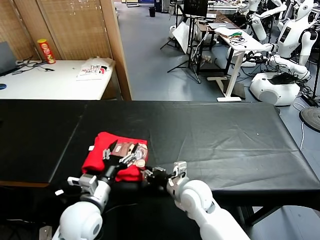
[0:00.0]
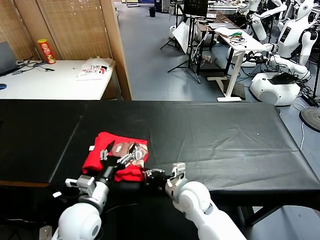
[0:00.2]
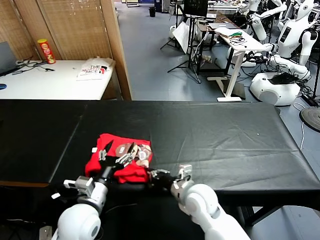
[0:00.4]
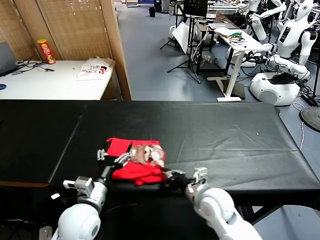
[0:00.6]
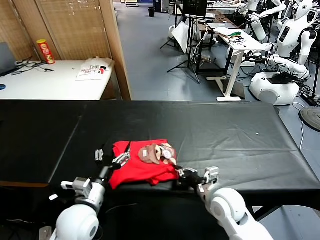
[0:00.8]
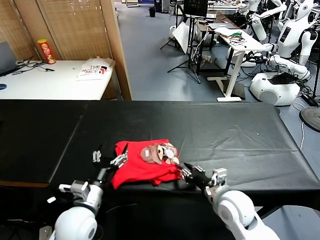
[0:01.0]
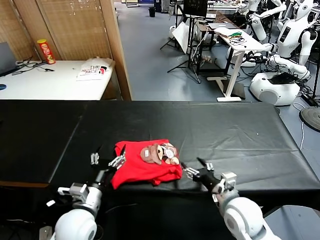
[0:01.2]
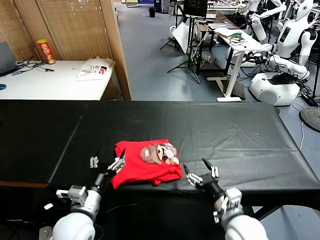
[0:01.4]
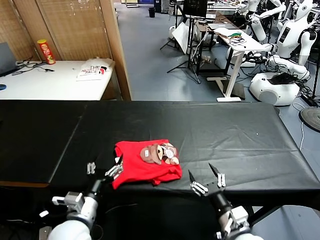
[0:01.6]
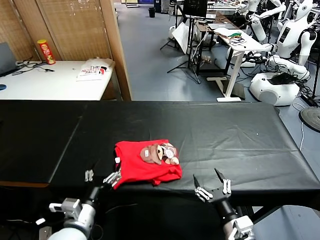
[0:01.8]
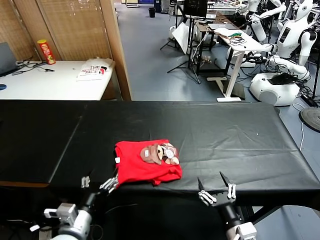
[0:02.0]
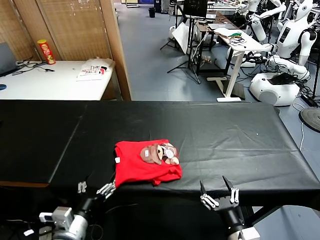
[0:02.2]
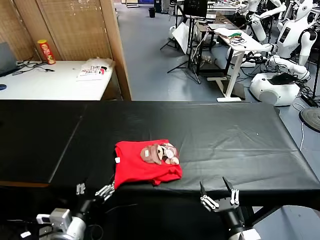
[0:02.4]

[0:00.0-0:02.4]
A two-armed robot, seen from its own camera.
Task of the whole recording: fold and organize the clothes.
Step, 0:00.0 to 0:01.2: Drag the clothes to the center of the table.
0:00.0 to 0:01.2: The right gripper is displaced to the right and backward by roughly 15 cm, and opens.
0:01.2 to 0:02.4: The right gripper travels backward by roughly 15 cm. The left gripper is displaced backward by about 10 cm.

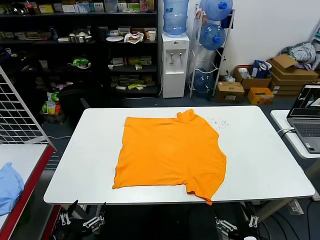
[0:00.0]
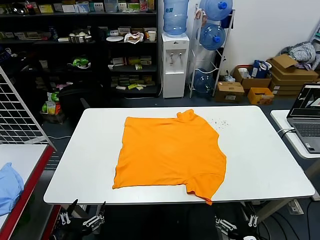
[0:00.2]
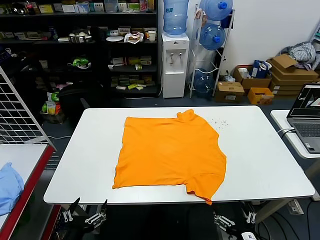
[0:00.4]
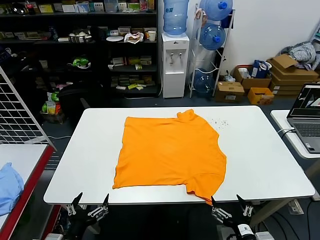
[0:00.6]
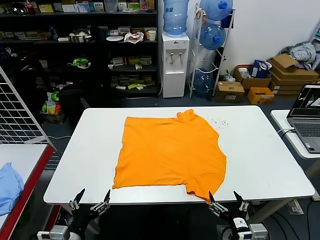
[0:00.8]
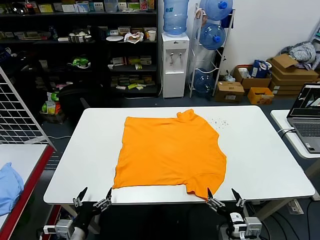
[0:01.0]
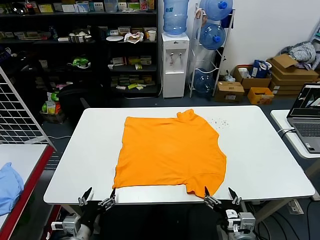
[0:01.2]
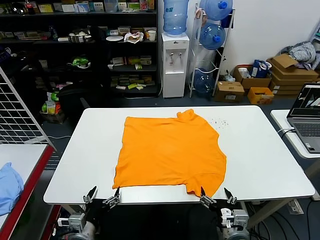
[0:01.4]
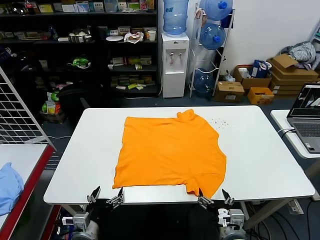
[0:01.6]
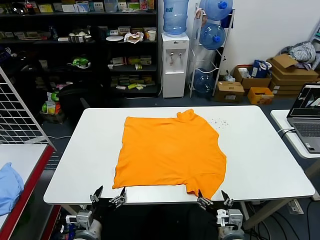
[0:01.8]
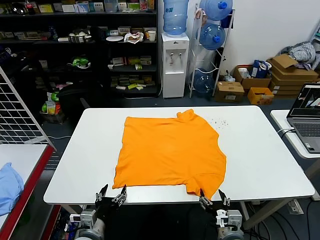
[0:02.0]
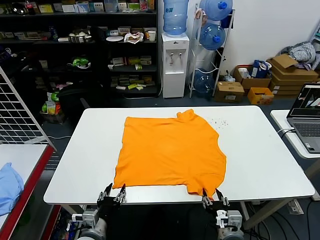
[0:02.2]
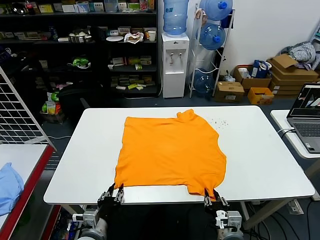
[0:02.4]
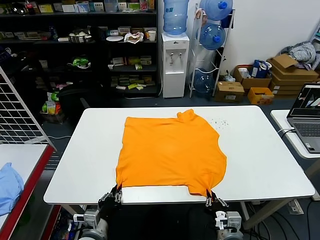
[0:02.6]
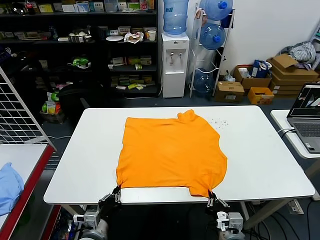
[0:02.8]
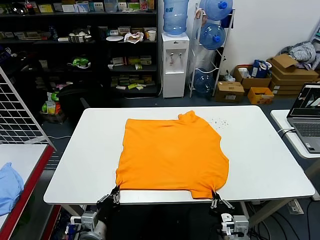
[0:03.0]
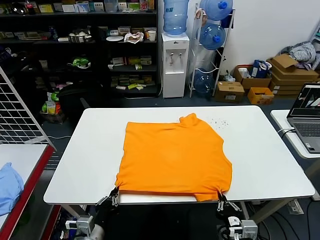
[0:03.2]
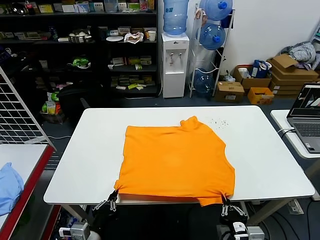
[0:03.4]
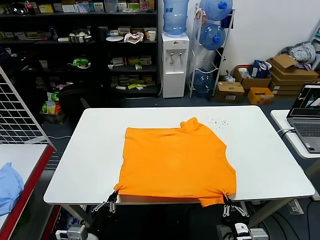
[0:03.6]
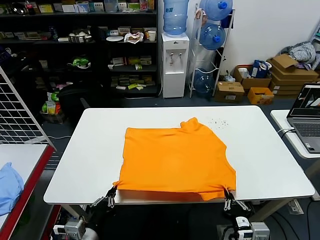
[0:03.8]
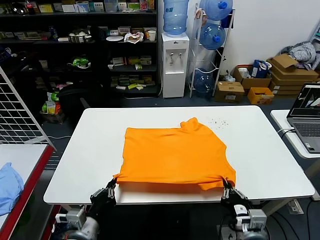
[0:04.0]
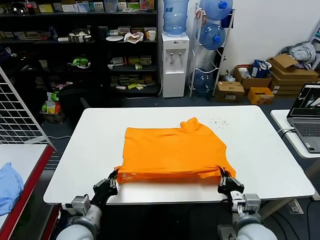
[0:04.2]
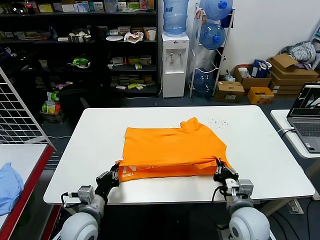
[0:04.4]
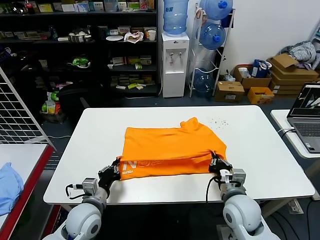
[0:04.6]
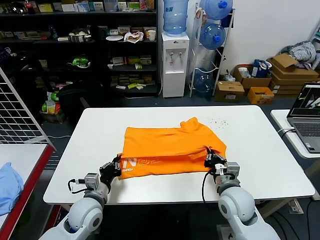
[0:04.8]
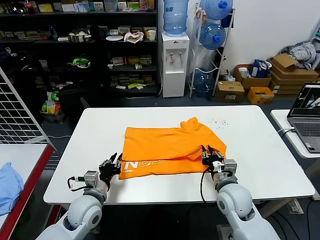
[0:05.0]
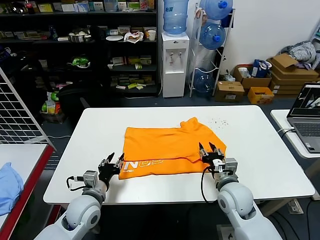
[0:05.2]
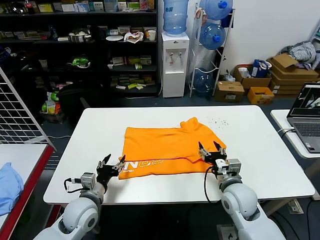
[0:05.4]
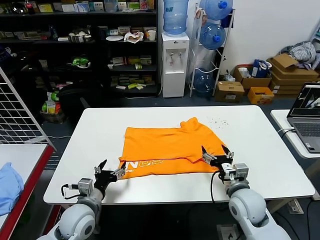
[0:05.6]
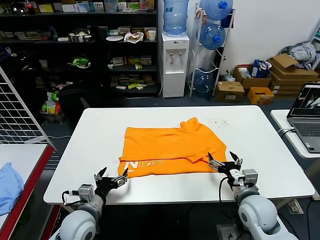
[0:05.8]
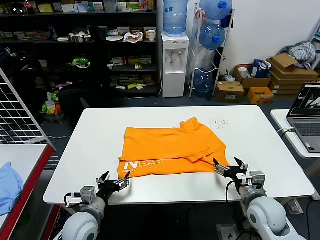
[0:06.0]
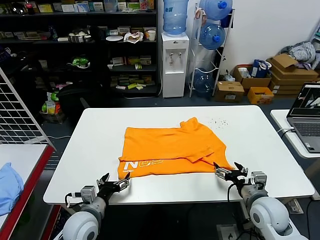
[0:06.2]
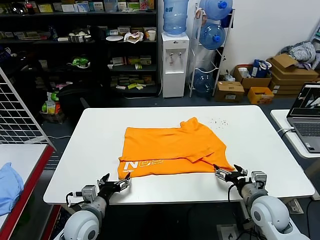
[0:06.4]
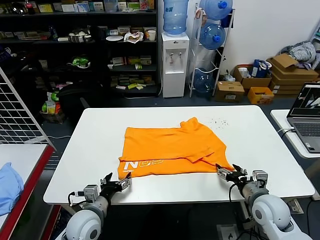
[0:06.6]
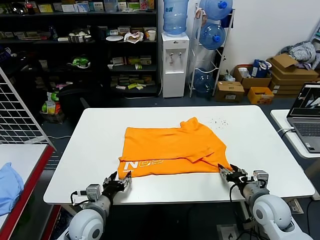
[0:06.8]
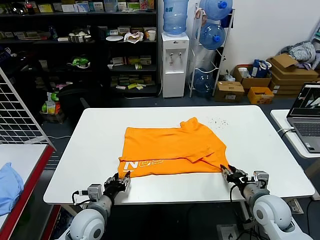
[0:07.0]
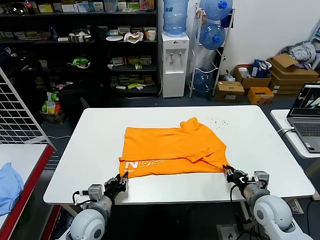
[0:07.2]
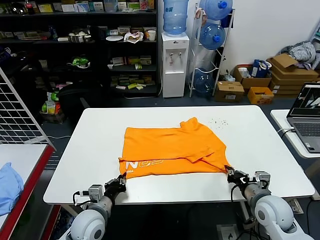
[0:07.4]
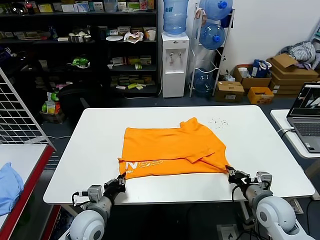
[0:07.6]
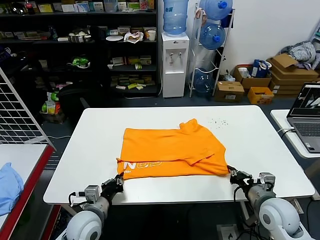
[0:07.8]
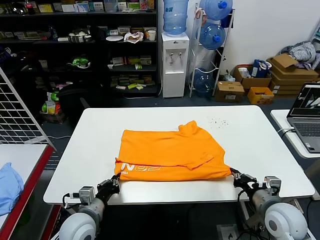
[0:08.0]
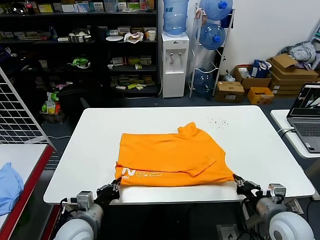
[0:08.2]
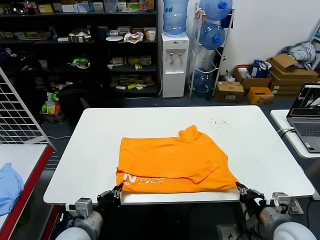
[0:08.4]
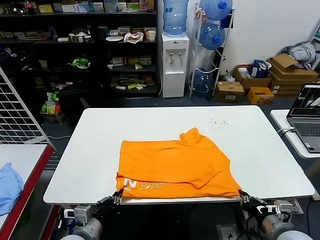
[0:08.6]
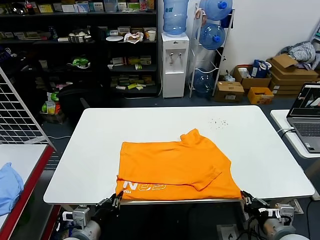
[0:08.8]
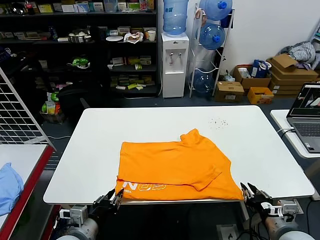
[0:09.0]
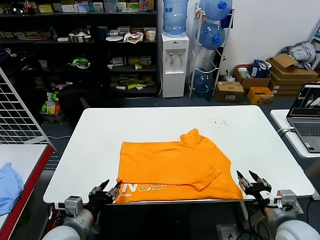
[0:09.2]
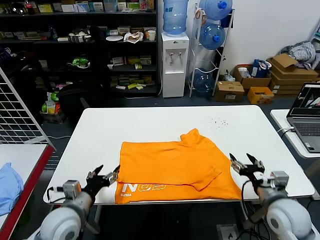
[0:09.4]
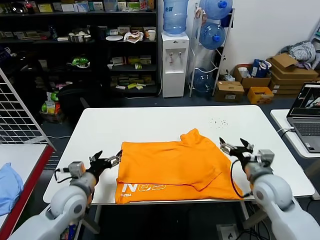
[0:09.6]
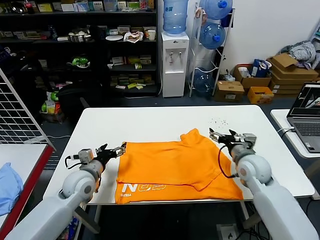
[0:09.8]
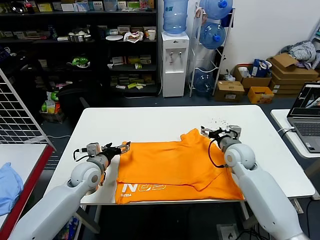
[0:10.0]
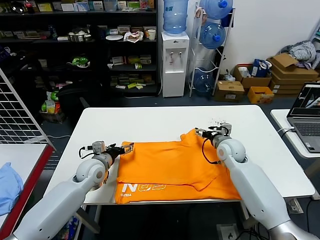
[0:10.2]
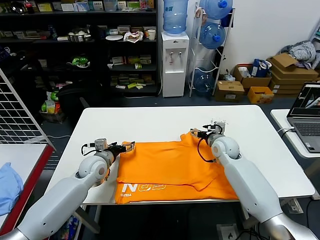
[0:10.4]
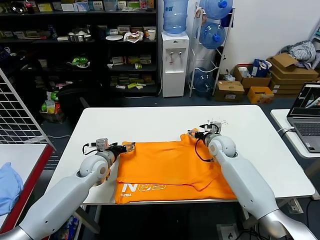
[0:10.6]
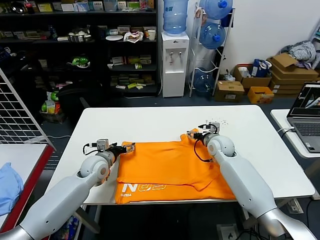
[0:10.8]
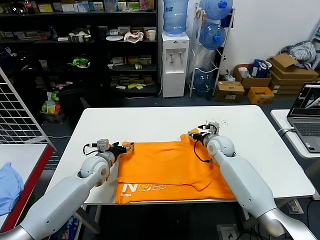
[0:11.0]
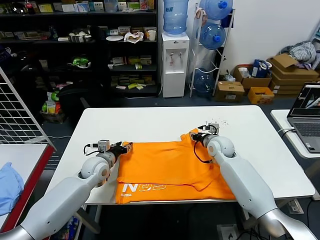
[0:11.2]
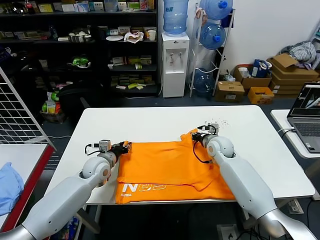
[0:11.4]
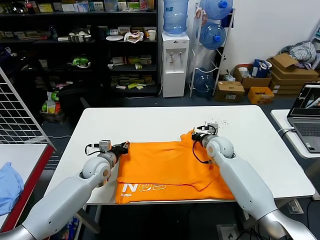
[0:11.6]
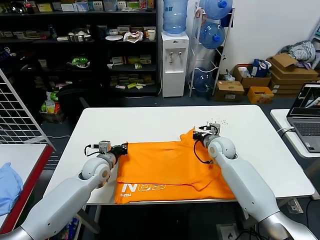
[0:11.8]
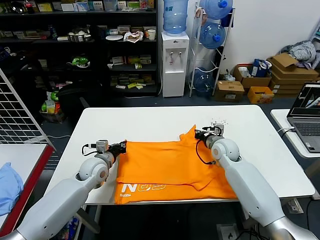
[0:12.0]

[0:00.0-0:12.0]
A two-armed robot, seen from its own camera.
Task of the whole recording: fold and organize the clothes.
Step, 0:00.0 to 0:02.6: use both grippers simultaneously to clamp the lower edge of the clothing fabric.
Step, 0:02.8 to 0:04.8: use both grippers to drag the lower edge of the fabric forward and fold it over the upper edge.
Step, 0:05.0 to 0:09.0: Drag the clothes downward with both gripper.
Step, 0:09.2 to 0:11.6: use both grippers simultaneously to clamp the upper edge of the clothing fabric.
0:01.6 to 0:03.0: The right gripper closes its fingers. The left gripper closes its fingers.
0:03.0 to 0:04.4: The left gripper travels forward by about 5 cm, while the right gripper travels forward by approximately 10 cm.
0:04.4 to 0:06.0: The left gripper opens, while the right gripper goes some 10 cm to the right, and opens its fingers.
0:06.0 to 0:07.6: The right gripper closes. Meanwhile the left gripper closes.
0:07.6 to 0:09.0: The right gripper goes about 10 cm backward, and opens up; the left gripper travels backward and upward by some 10 cm.
0:09.0 to 0:10.4: The grippers both shift forward by approximately 30 cm. The left gripper opens its fingers, while the right gripper opens up.
0:10.4 to 0:12.0: The left gripper closes its fingers. The right gripper closes.

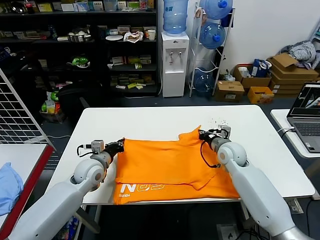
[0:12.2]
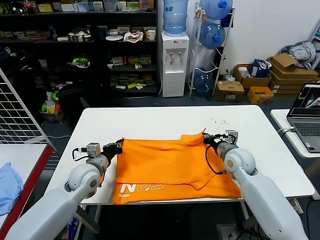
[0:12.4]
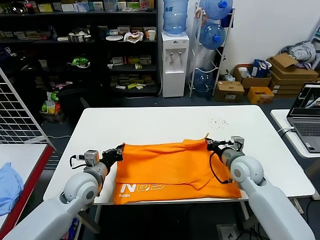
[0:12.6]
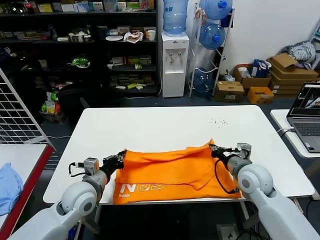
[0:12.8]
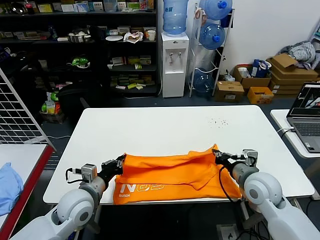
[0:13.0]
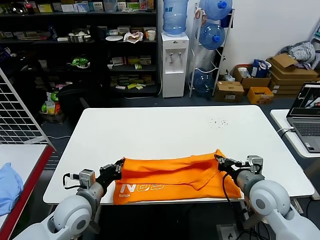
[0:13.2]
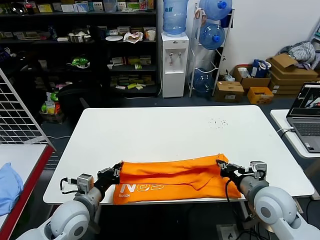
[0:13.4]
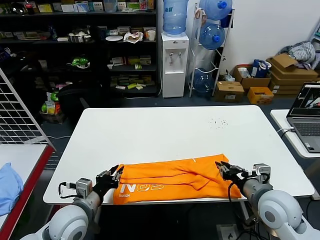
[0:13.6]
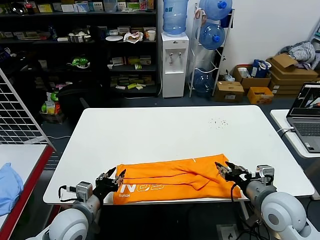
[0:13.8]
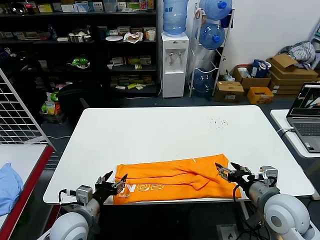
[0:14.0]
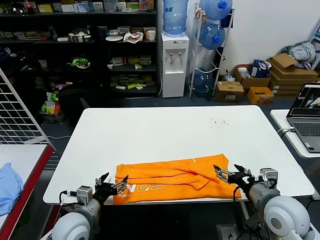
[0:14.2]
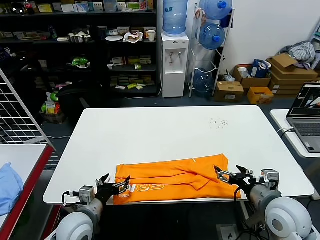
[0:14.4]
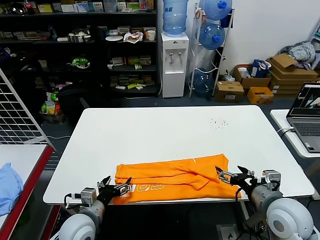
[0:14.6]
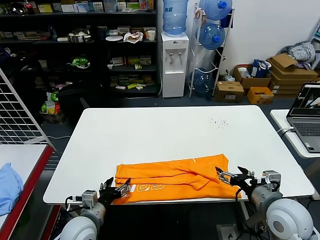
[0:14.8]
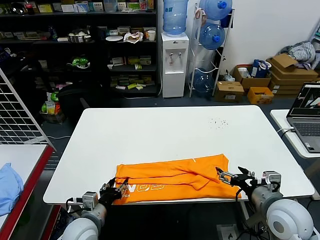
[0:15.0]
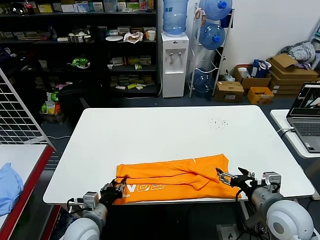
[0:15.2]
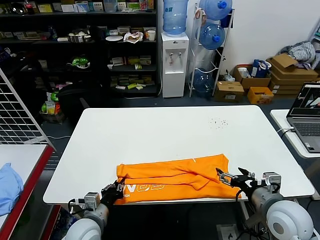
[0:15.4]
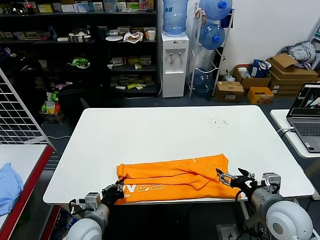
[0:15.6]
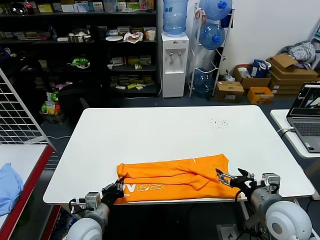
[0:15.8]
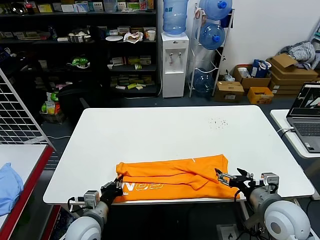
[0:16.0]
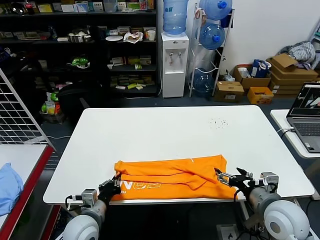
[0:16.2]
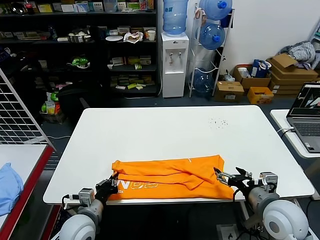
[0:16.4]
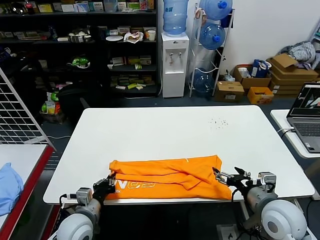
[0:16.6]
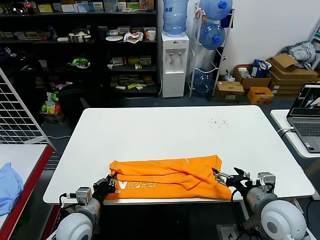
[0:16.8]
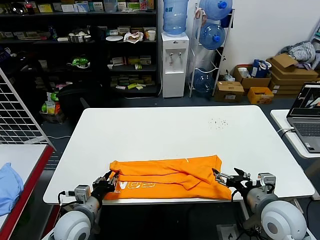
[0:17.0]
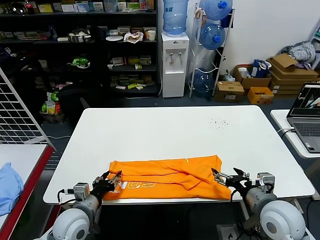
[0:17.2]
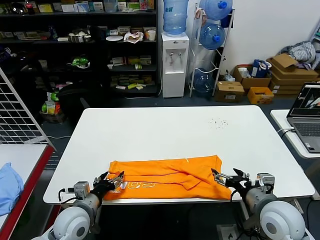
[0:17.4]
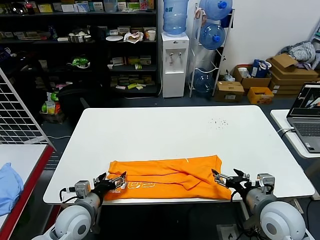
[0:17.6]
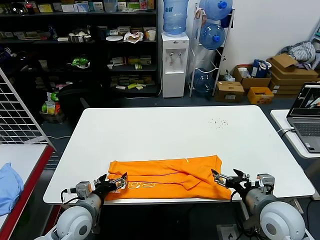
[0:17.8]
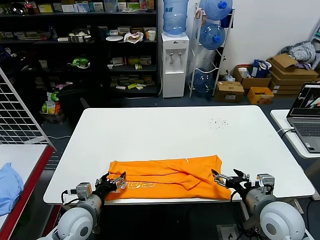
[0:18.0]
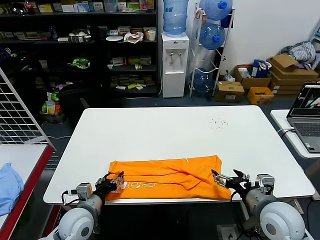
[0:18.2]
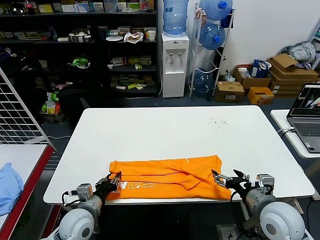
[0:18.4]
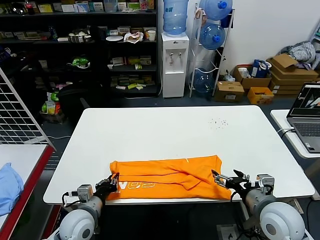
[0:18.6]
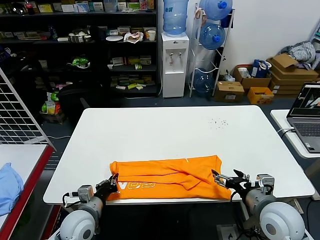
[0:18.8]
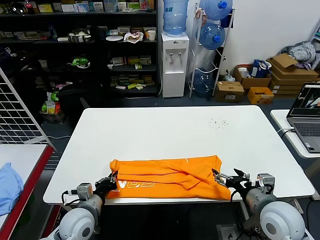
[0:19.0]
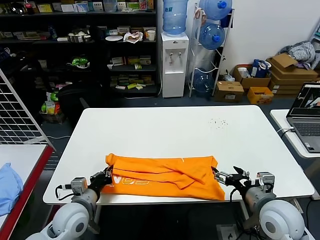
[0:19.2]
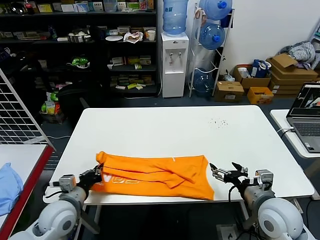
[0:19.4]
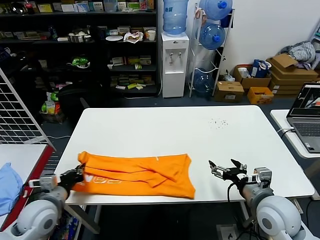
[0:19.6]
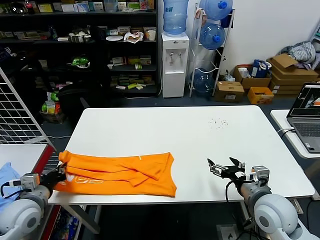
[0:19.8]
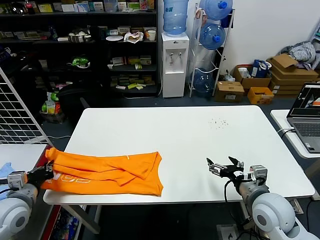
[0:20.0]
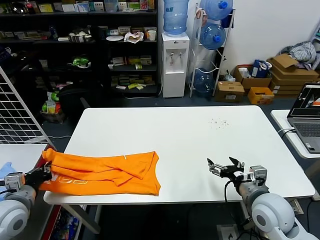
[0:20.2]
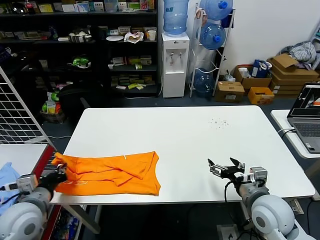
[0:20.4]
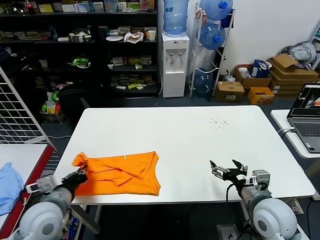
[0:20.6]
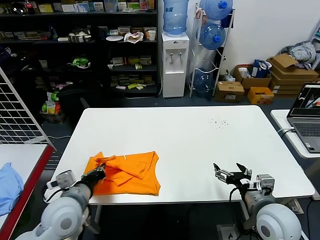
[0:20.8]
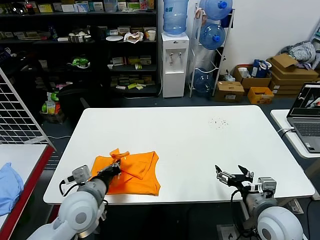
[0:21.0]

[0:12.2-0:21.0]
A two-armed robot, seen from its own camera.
Task of the whole recording: fold and organize the clothes.
Step, 0:12.2 to 0:13.4: use both grippers to drag the upper edge of the fabric backward and fold it over the lower edge.
Step, 0:13.8 to 0:18.6: use the left gripper to clamp the left edge of the fabric.
0:12.2 to 0:13.6: Both grippers move backward, approximately 20 cm.
0:13.6 to 0:15.2: The left gripper moves downward, approximately 5 cm, and opens and closes again, while the right gripper opens up.
0:15.2 to 0:16.6: The left gripper closes up.
0:16.6 to 0:18.0: The left gripper opens its fingers.
0:18.0 to 0:19.6: The left gripper goes about 10 cm to the left, and closes its fingers.
0:19.6 to 0:21.0: The left gripper shifts about 10 cm to the right.
